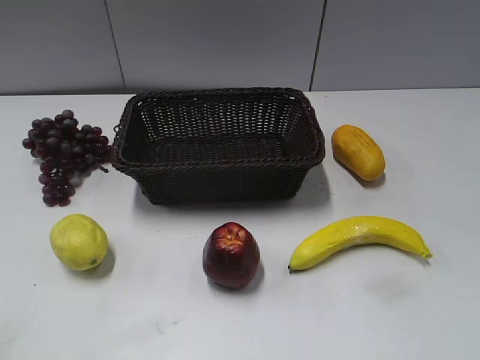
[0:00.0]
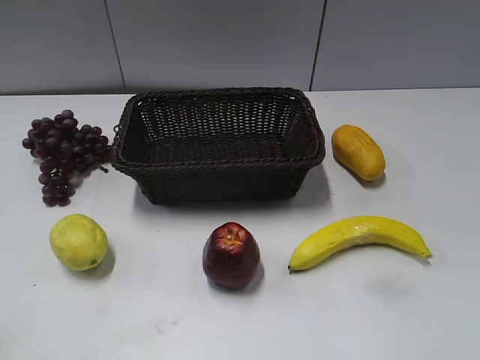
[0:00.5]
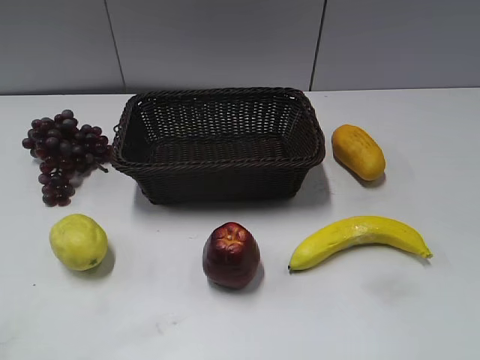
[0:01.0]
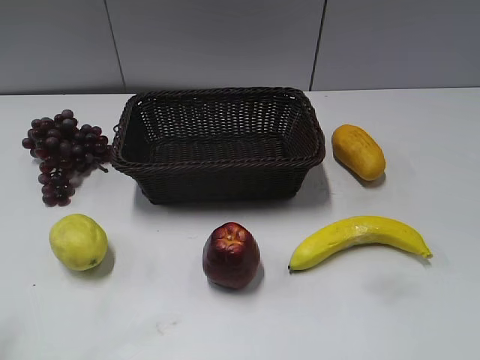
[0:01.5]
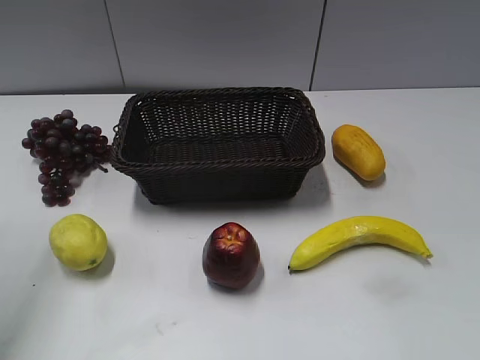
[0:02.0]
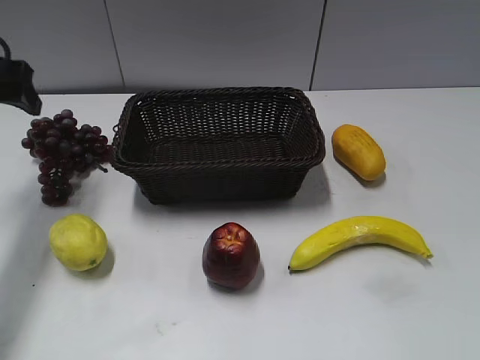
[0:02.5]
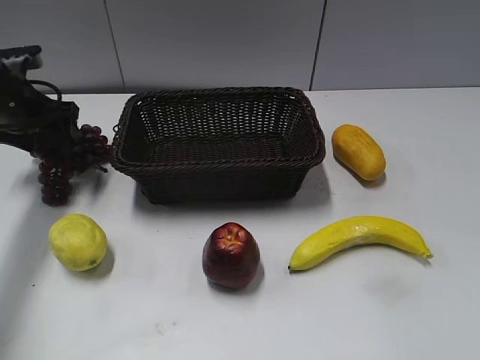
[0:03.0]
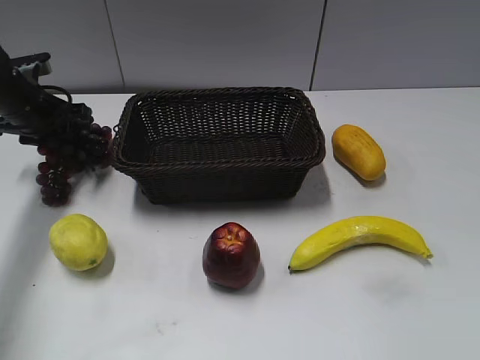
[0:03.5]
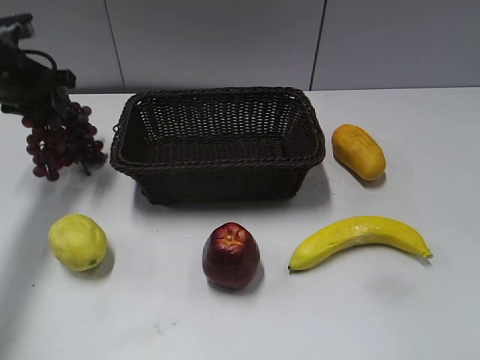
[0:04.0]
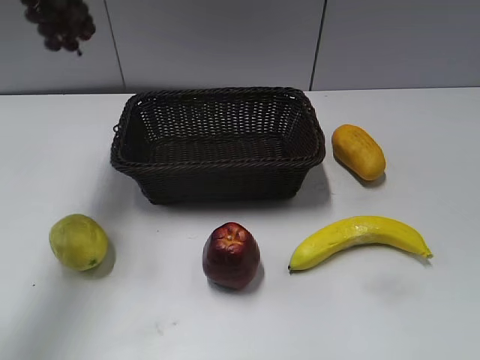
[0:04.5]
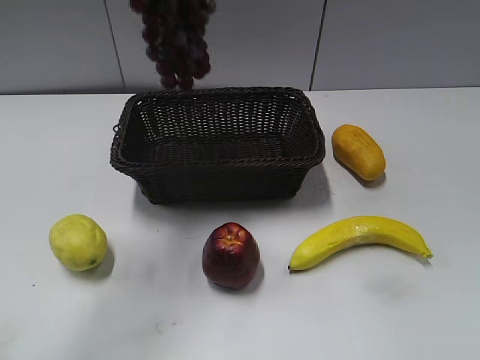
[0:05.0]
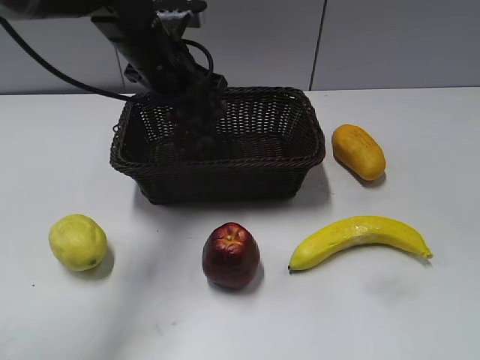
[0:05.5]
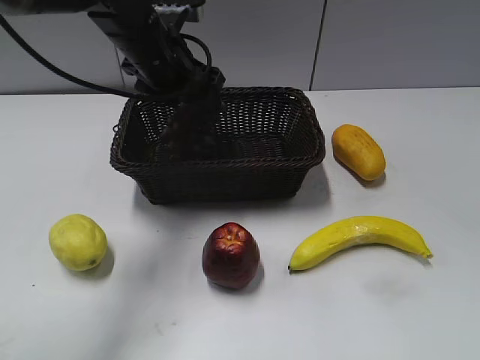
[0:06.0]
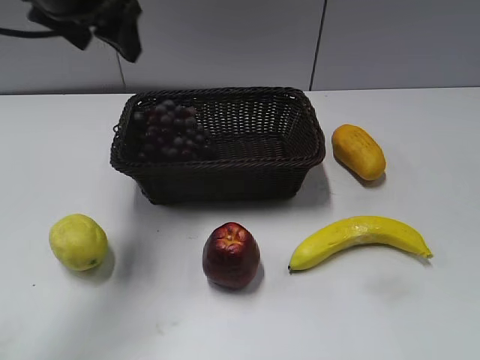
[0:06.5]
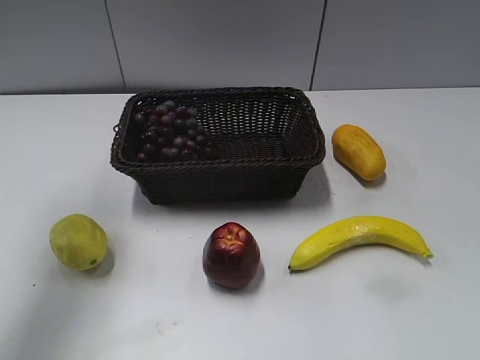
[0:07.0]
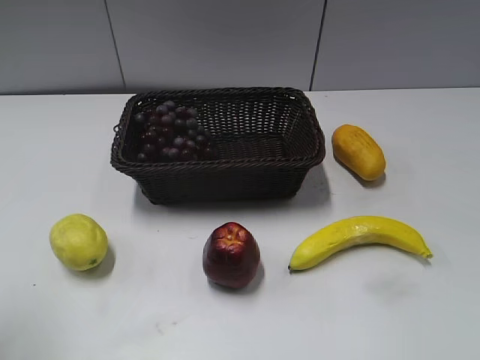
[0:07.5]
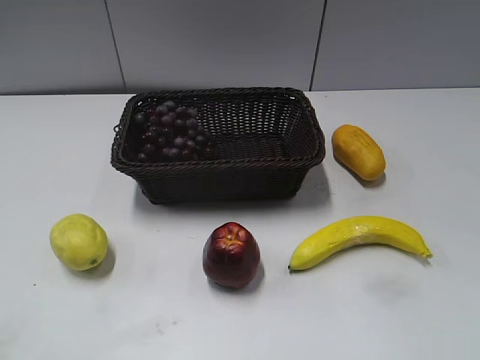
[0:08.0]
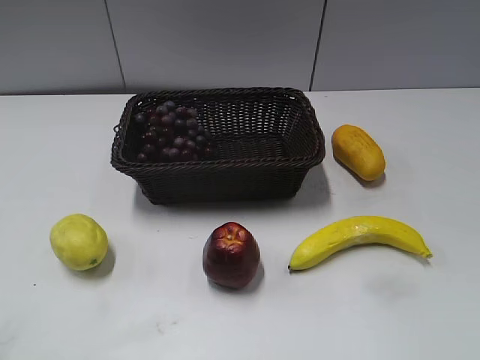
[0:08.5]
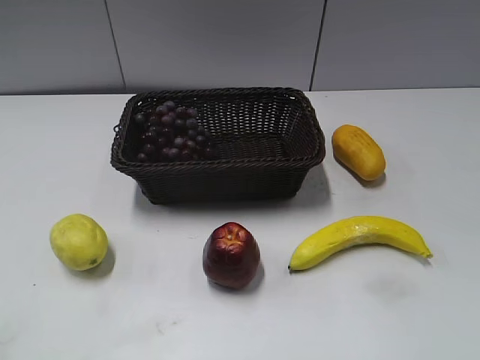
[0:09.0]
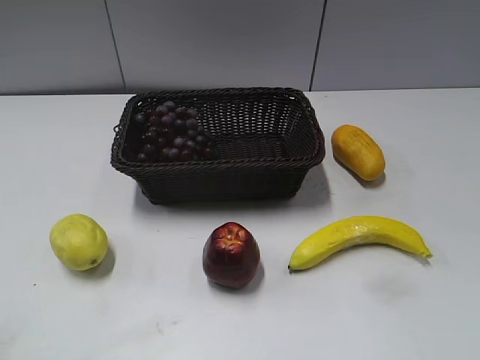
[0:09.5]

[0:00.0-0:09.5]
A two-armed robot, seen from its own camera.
Step, 0:02.5 to 0:03.0: Grasp the grape with left gripper.
Step, 0:03.5 to 0:06.0: Place the grape in the basket with left gripper.
0:02.0 to 0:04.0: The left gripper goes roughly 25 cm forward and downward, and closes its fingers.
0:04.0 to 0:05.5: The left gripper travels to the right by some 20 cm.
0:05.5 to 0:07.5: The left gripper goes approximately 35 cm backward, to the left and upward, and opens.
